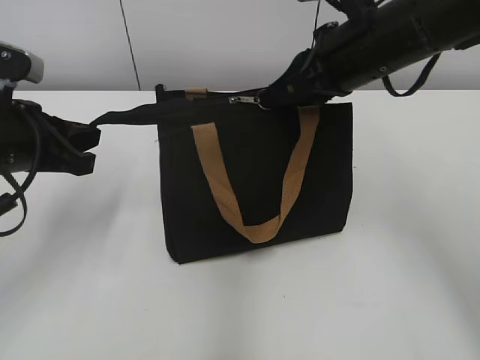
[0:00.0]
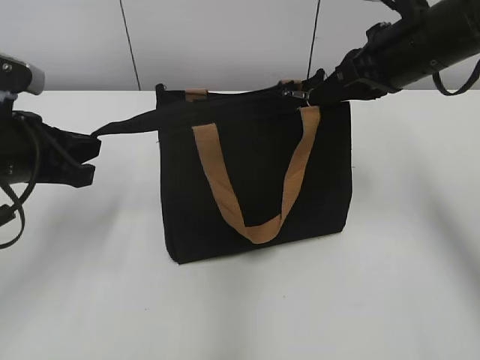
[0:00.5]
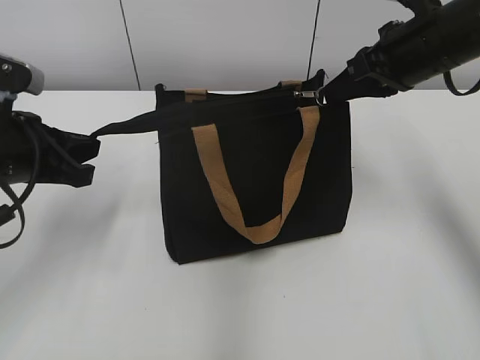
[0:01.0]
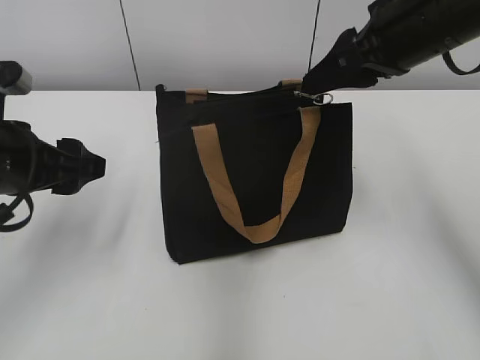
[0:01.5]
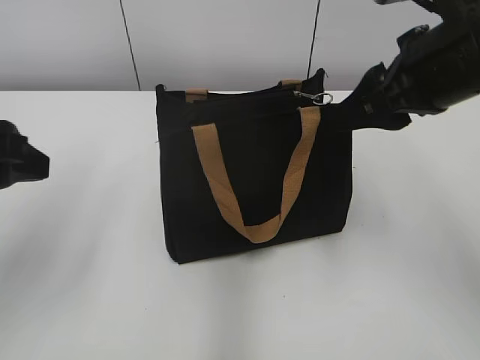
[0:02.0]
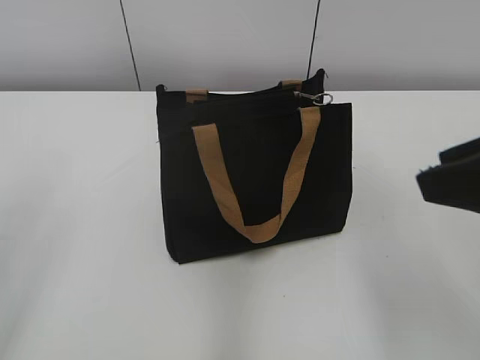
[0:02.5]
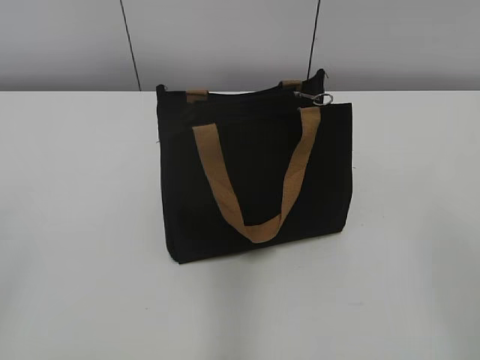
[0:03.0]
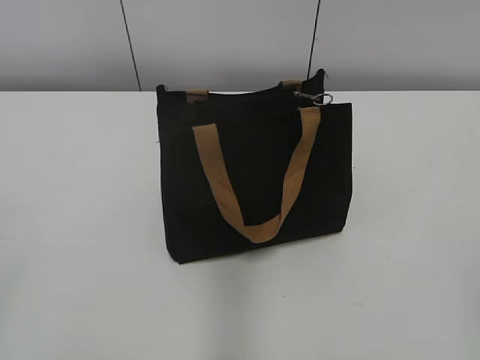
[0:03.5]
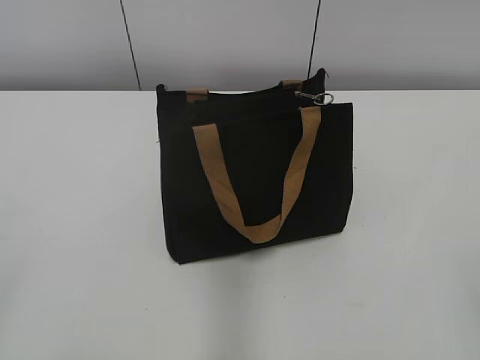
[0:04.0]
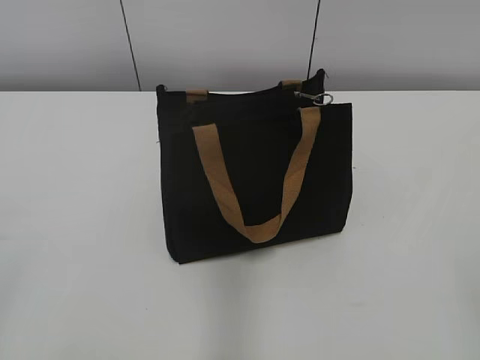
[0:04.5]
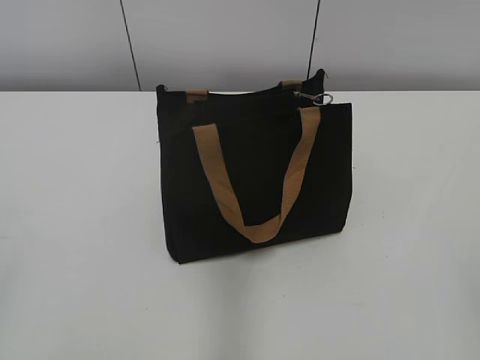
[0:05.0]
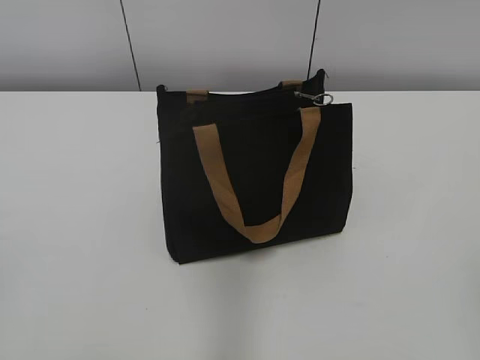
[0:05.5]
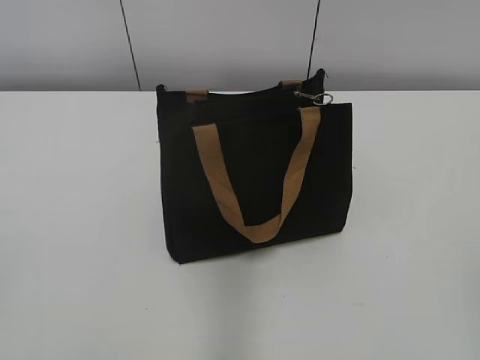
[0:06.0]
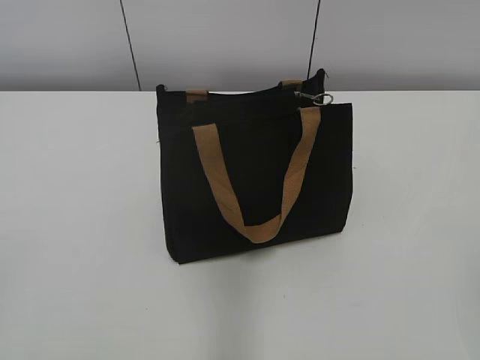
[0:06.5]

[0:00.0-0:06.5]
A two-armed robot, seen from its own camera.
0:00.0 to 0:02.0: The right gripper moves backward, approximately 5 cm, and opens its fingers. Meanwhile the left gripper travels backward and upward by about 10 cm, and opens its fingers.
0:02.0 to 0:04.5: The left gripper goes approximately 20 cm backward and to the left; the right gripper moves backward, some 30 cm.
